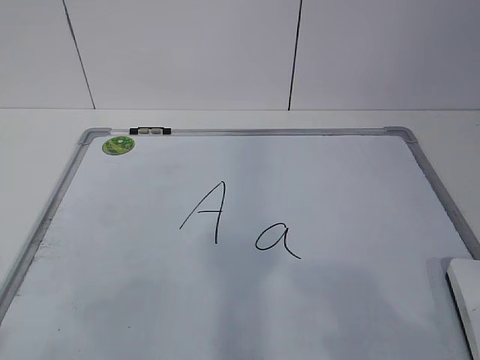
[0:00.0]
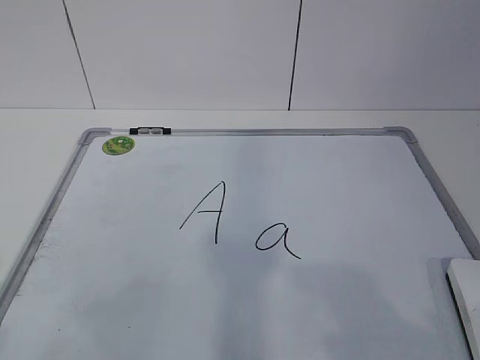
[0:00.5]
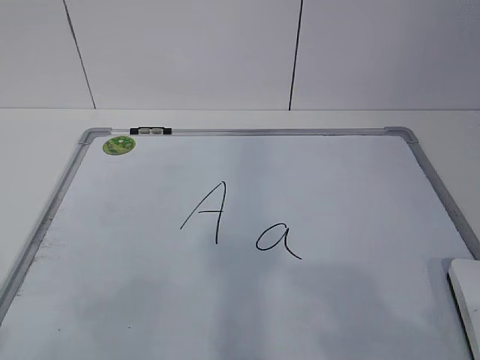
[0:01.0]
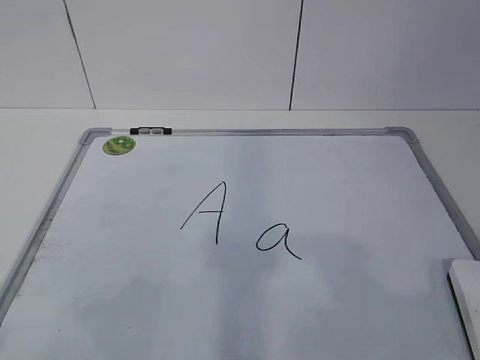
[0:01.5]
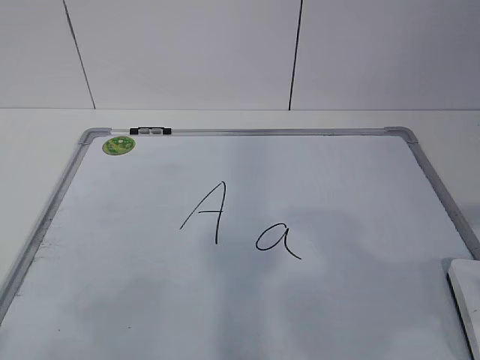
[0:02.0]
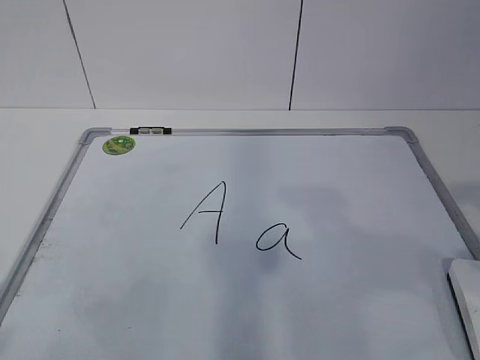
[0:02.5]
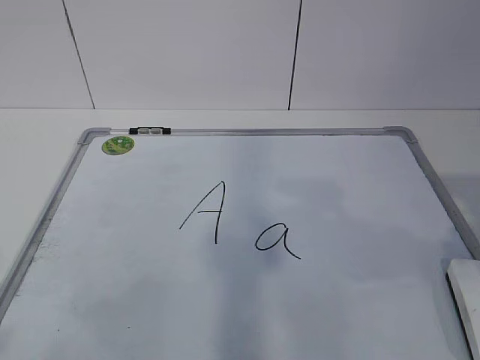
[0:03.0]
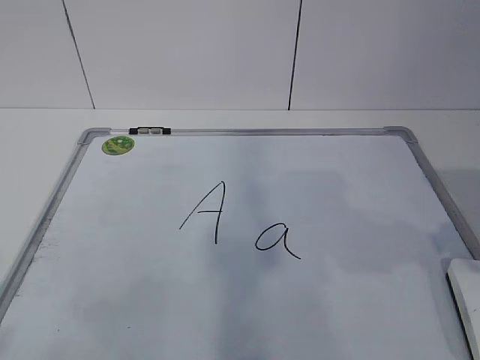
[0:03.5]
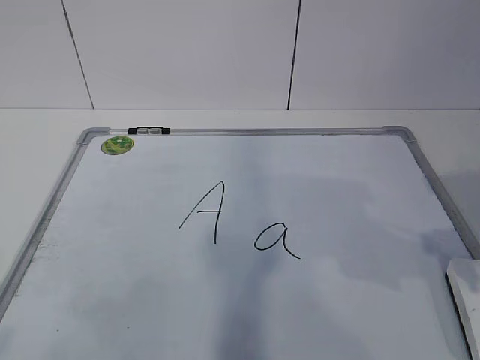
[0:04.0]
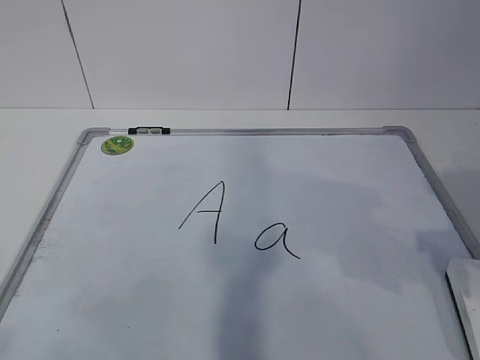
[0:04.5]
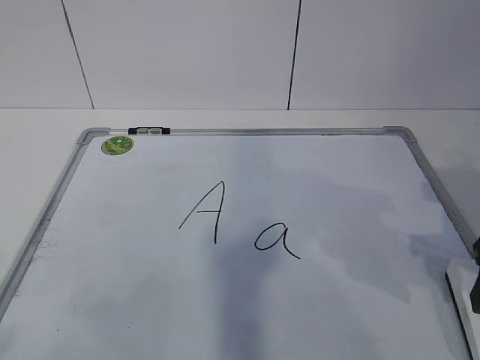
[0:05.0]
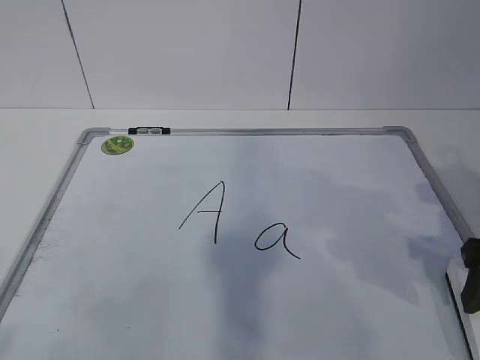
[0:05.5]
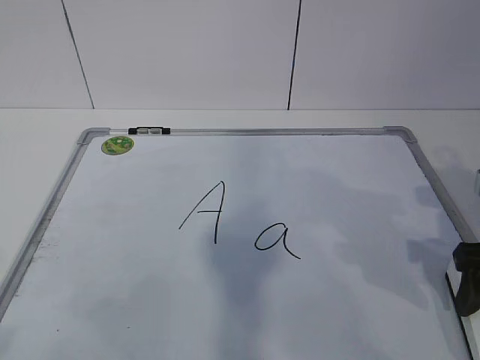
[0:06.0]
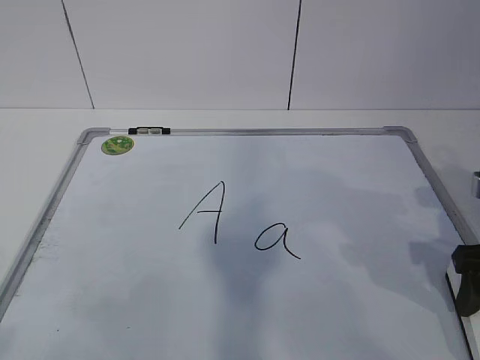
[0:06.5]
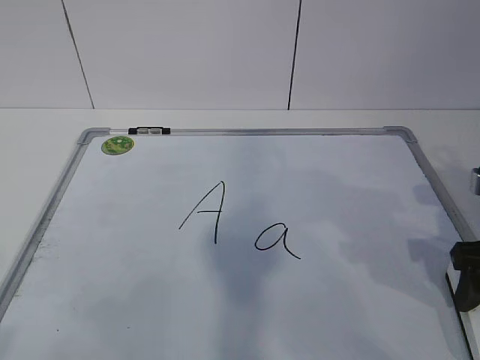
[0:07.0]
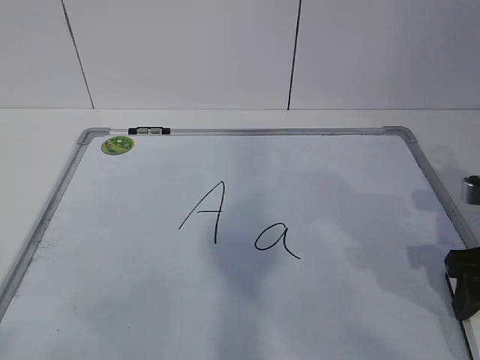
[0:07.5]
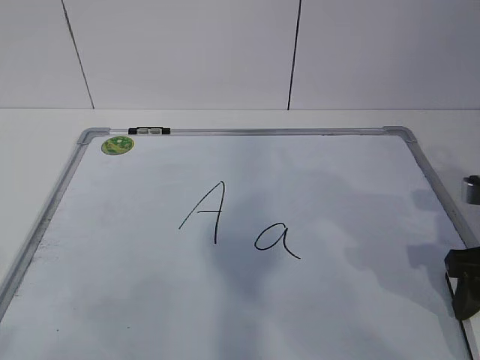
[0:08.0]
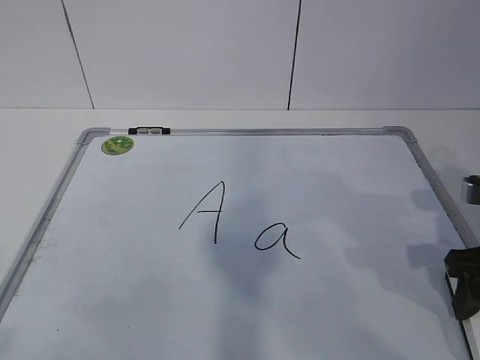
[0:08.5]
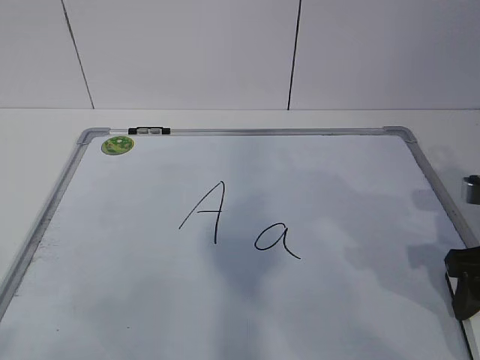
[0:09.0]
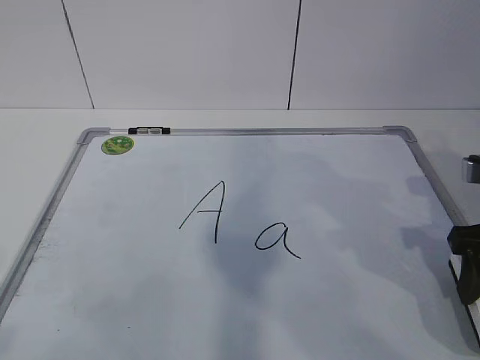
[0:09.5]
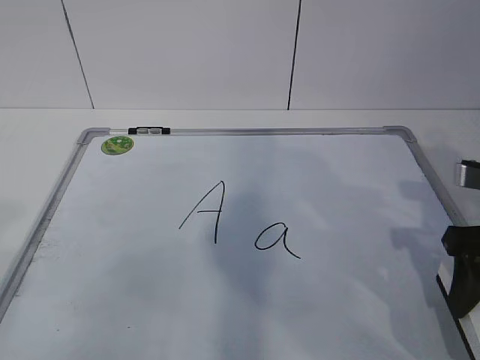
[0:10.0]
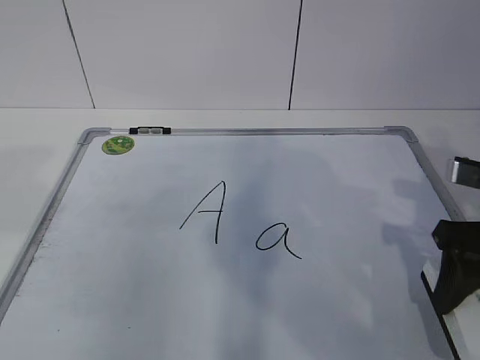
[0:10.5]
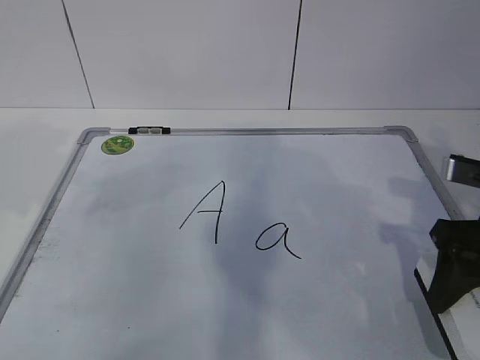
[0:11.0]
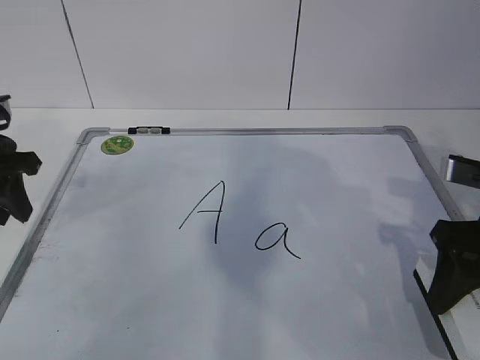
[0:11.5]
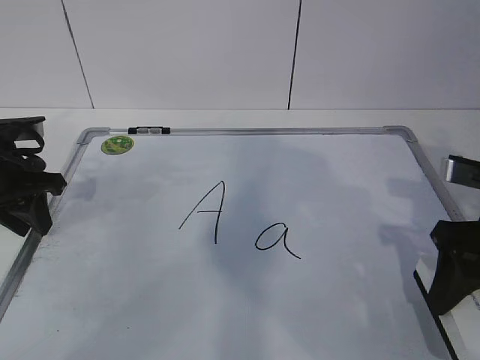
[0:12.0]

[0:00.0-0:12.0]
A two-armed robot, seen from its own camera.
Task of the whole recording: pick up the eraser on the blackboard and erase the letter "a".
0:02.0 to 0:04.0: The right gripper travels forward by approximately 10 cm, and opens.
0:04.0 to 0:06.0: The right gripper moves downward, about 5 cm.
0:06.0 to 0:08.0: The right gripper closes.
0:08.0 to 0:10.0: The grippers move only a little.
0:10.0 to 0:12.0: The left gripper heads forward and downward, covering about 35 cm.

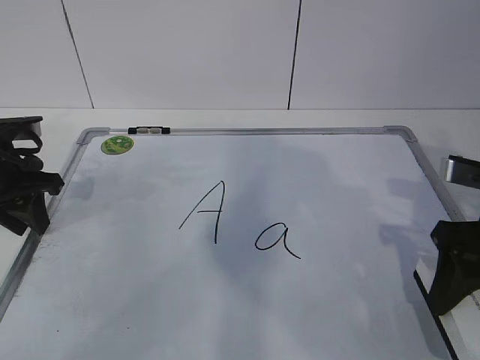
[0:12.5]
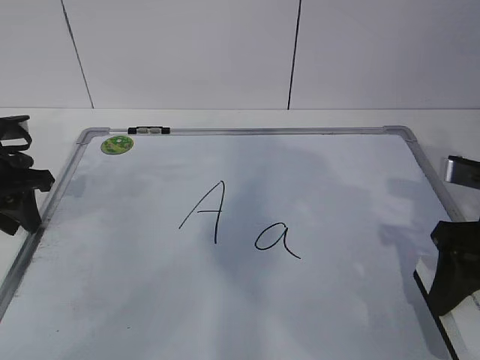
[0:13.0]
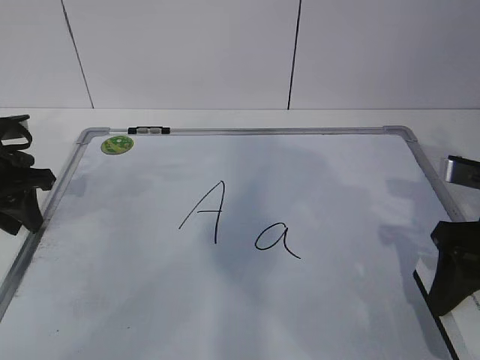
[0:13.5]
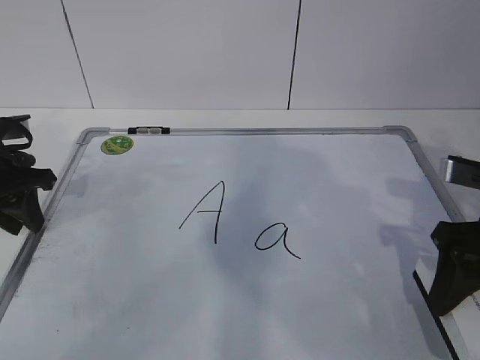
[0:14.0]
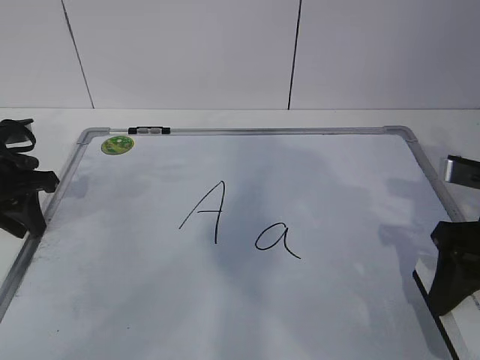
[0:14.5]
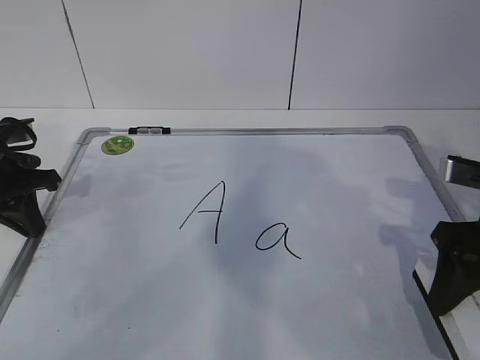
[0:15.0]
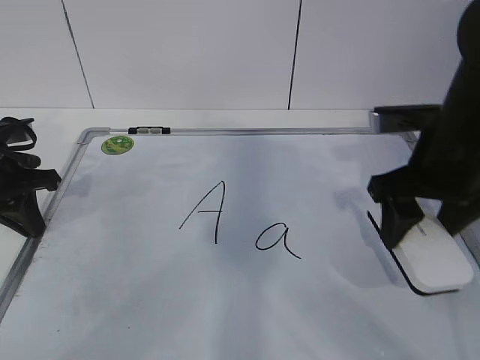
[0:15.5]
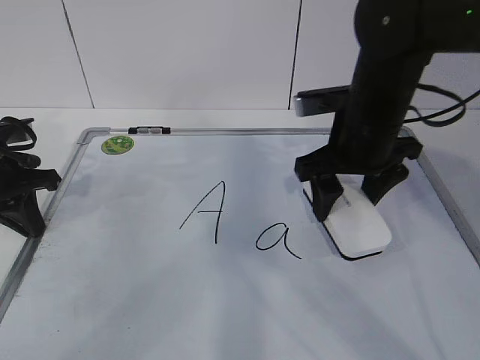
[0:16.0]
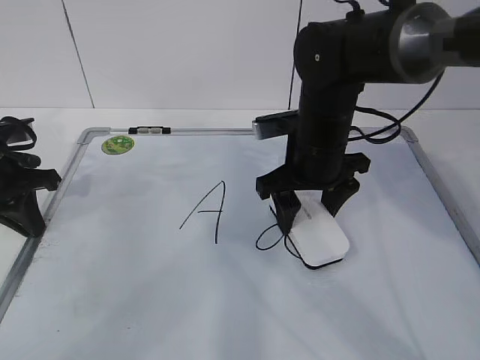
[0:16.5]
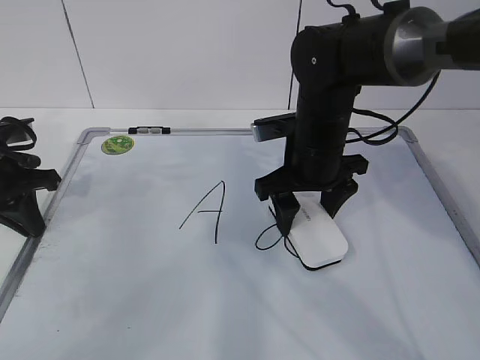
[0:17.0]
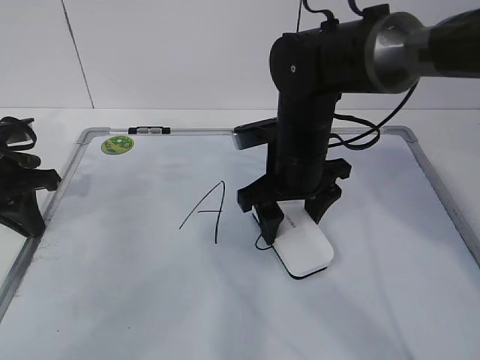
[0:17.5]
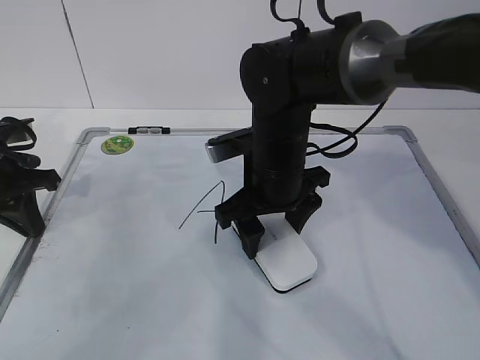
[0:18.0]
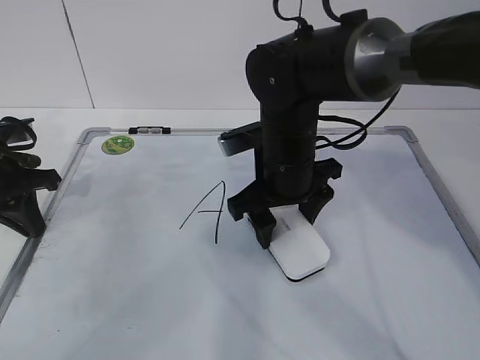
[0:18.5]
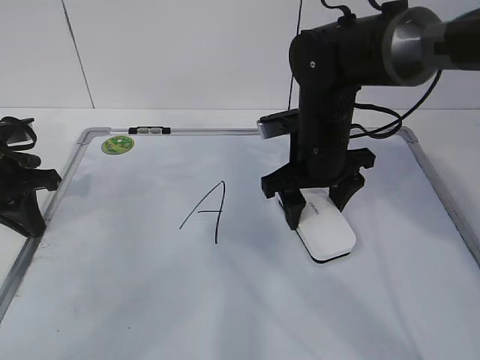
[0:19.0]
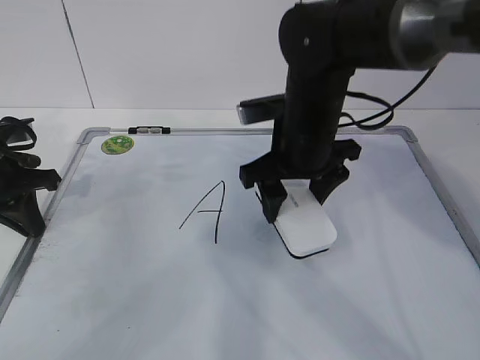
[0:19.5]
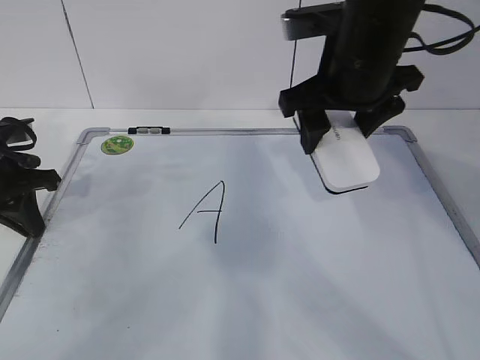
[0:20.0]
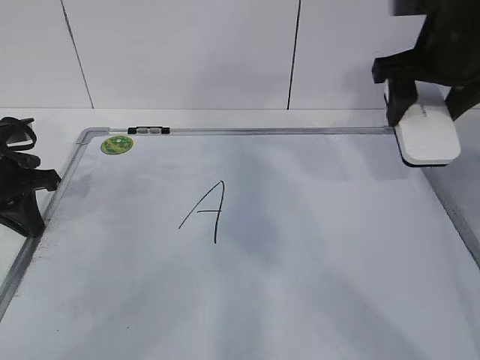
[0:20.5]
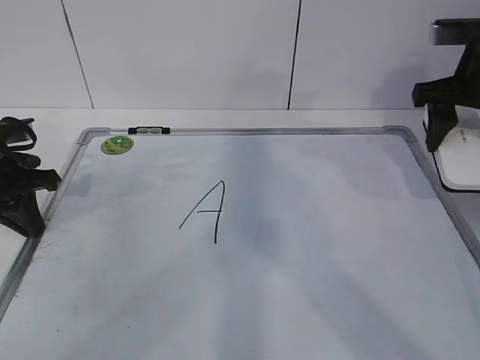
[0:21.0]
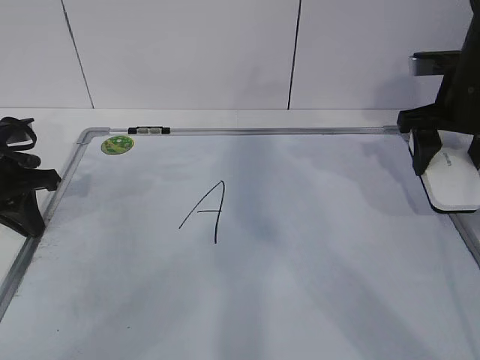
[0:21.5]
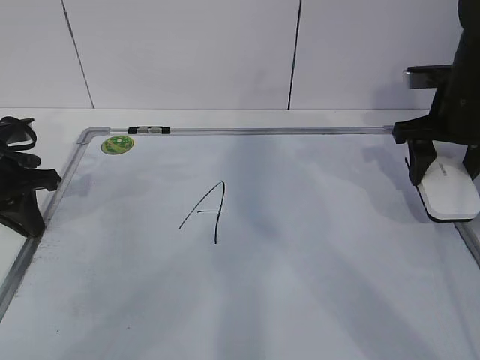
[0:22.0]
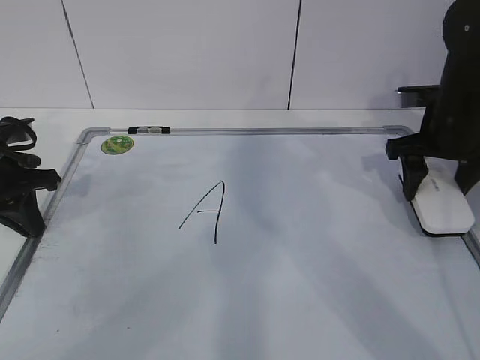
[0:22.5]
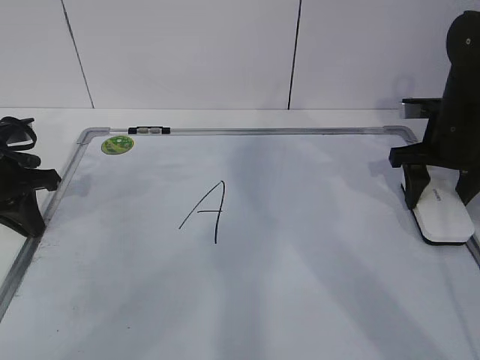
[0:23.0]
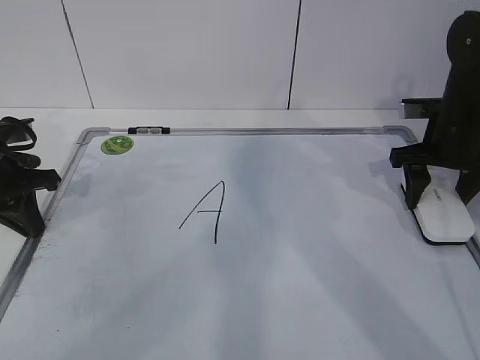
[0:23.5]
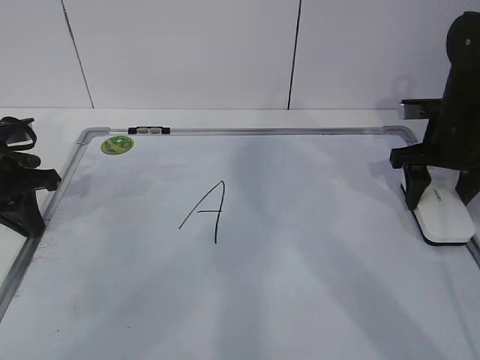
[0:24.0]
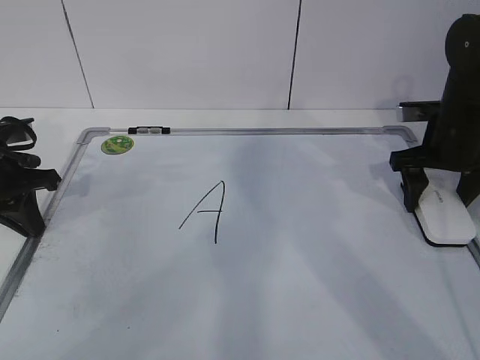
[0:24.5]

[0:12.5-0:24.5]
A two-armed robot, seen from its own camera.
Task of the whole recording: pick up the eraser on the blackboard and erase the letter "a".
Step, 0:12.5 to 0:16.0: Erase the letter a with your right hand.
Step, 0:16.5 to 0:20.0: Put down the eraser with your right hand.
0:12.5 to 0:14.5: The two grippers keep their place.
0:14.5 to 0:16.5: The left gripper closes, while the right gripper heads to the left and forward, covering about 20 cm.
0:16.5 to 0:18.5: The grippers move only a little.
0:18.5 to 0:20.5: The right gripper travels to the right and upward by roughly 20 cm.
0:20.5 to 0:22.5: The right gripper goes roughly 10 cm downward.
0:22.5 to 0:24.5: The right gripper opens up.

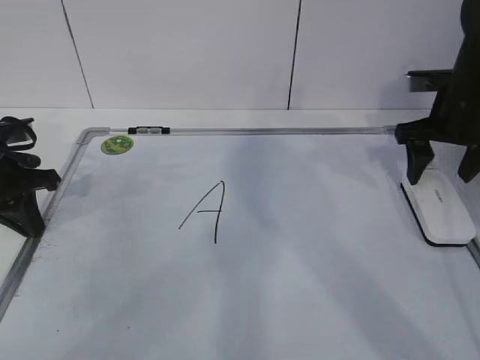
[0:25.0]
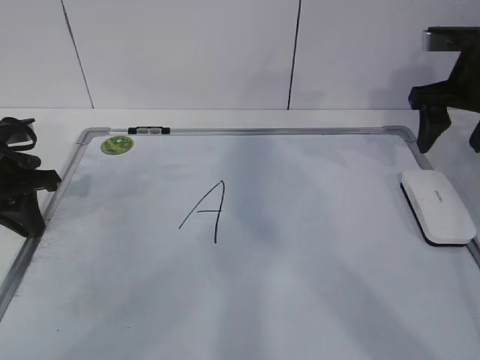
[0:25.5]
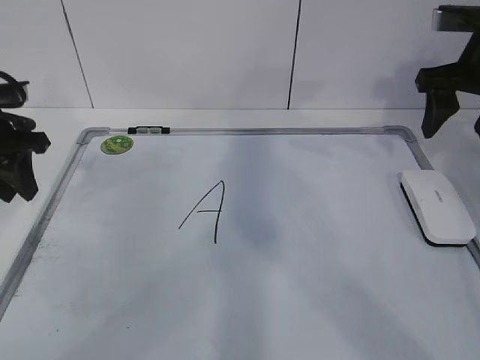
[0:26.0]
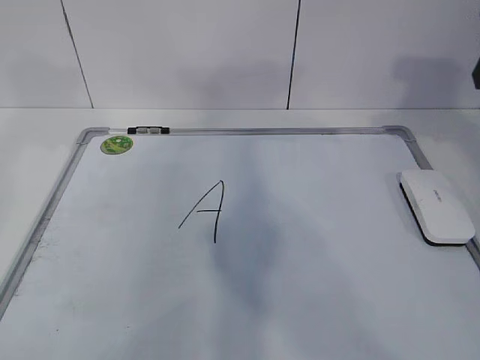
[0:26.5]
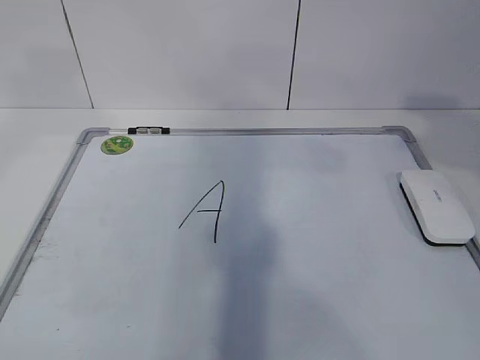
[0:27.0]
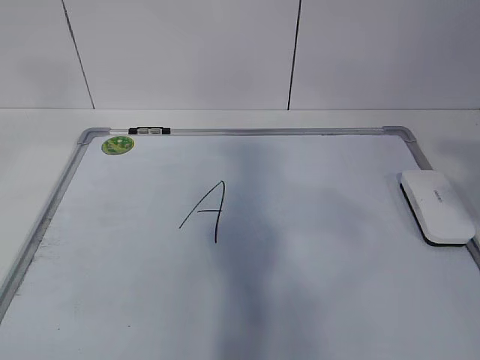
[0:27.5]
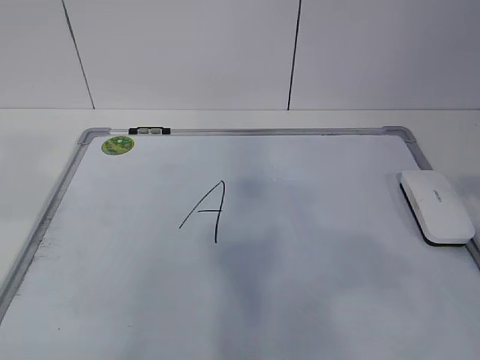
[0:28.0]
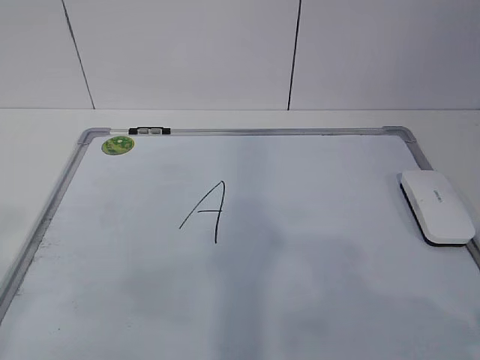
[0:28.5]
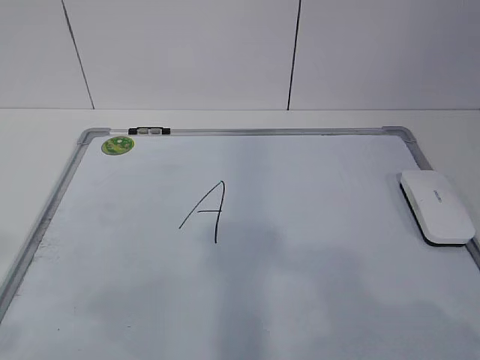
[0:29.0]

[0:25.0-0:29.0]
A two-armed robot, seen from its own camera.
Task of the whole recording: pick up the eraser on the blackboard and erase the letter "a".
0:25.0 to 0:27.0: The left gripper moves upward, roughly 25 cm, and opens its fingers. Meanwhile the right gripper is displaced backward and upward by some 25 cm, and closes up.
0:27.0 to 0:29.0: The grippers both shift backward and downward by about 25 cm.
